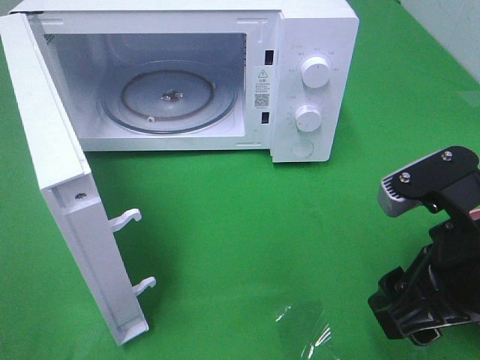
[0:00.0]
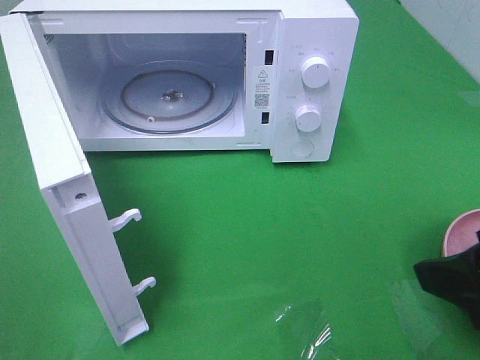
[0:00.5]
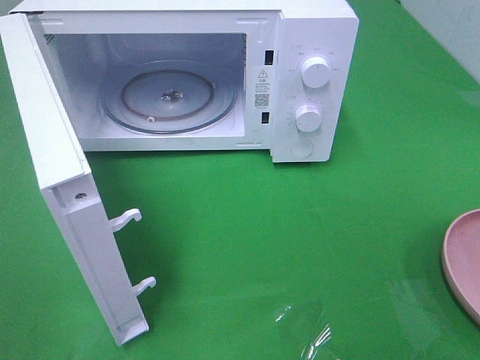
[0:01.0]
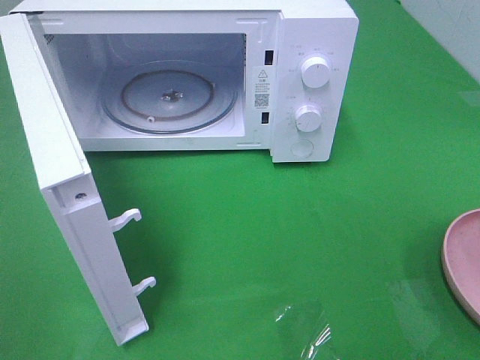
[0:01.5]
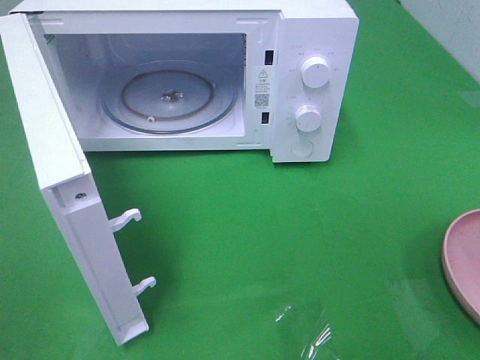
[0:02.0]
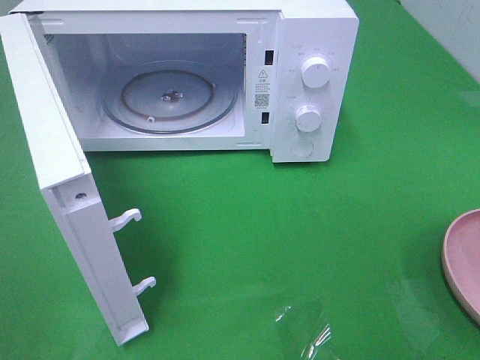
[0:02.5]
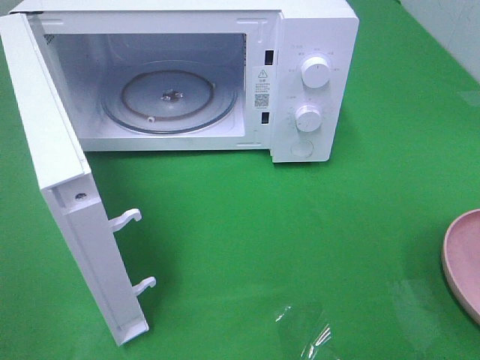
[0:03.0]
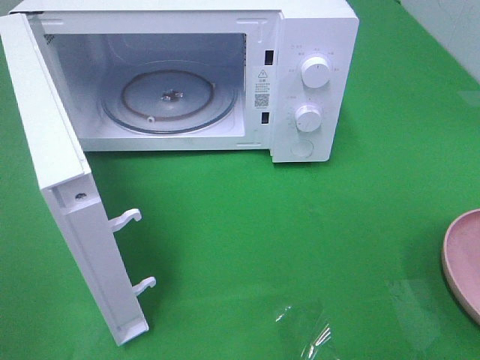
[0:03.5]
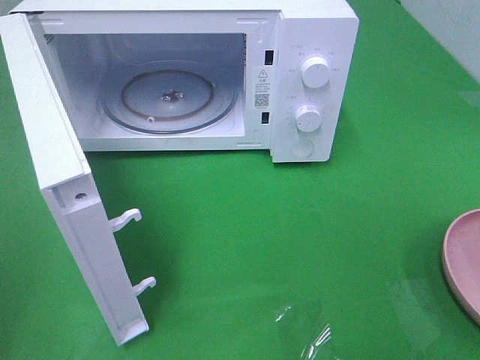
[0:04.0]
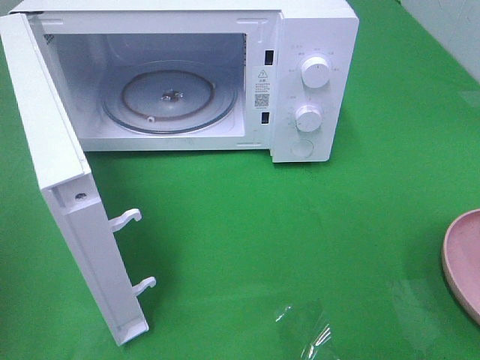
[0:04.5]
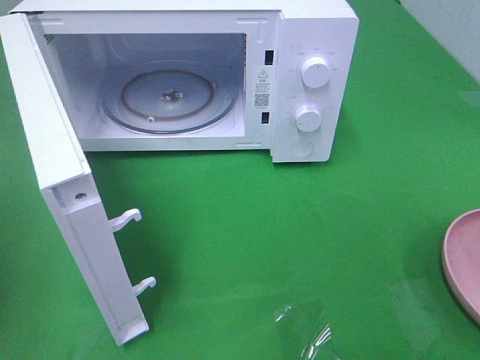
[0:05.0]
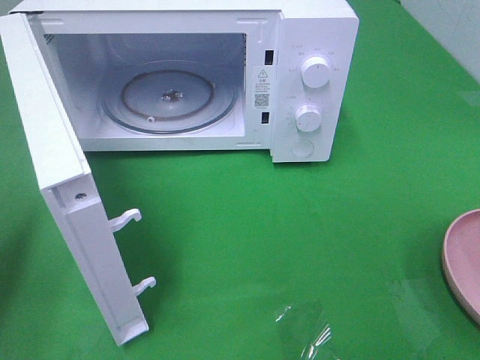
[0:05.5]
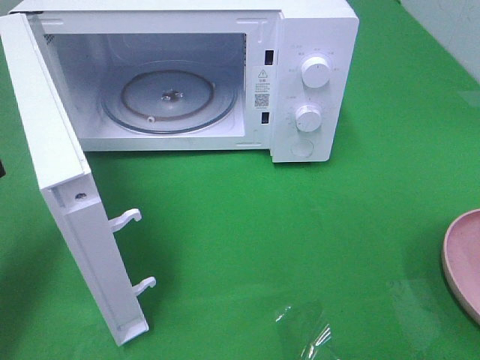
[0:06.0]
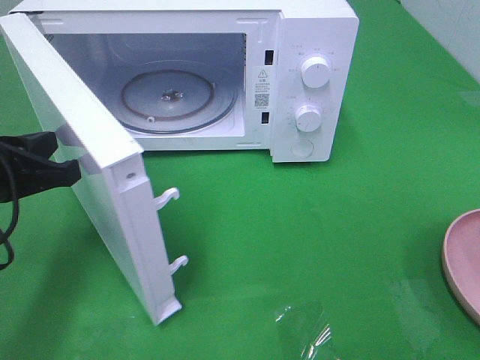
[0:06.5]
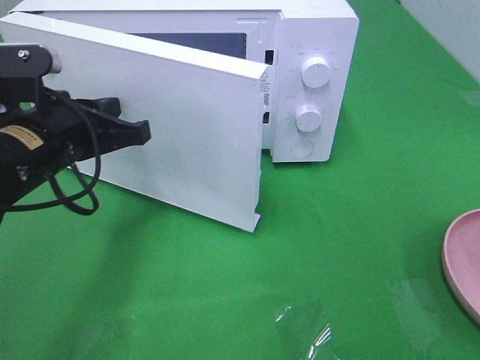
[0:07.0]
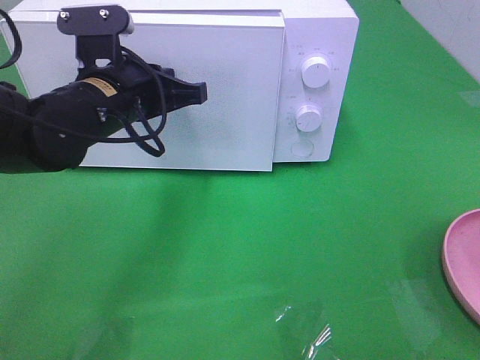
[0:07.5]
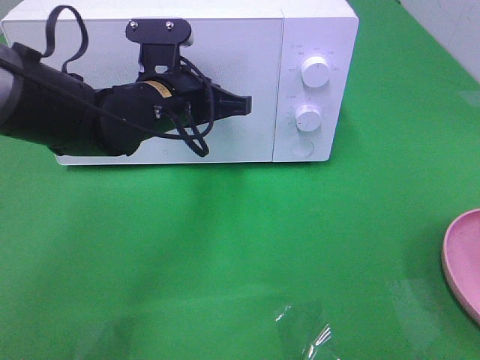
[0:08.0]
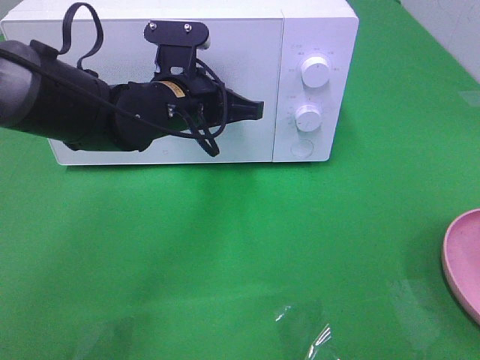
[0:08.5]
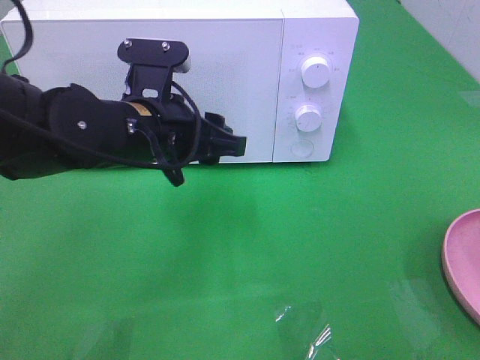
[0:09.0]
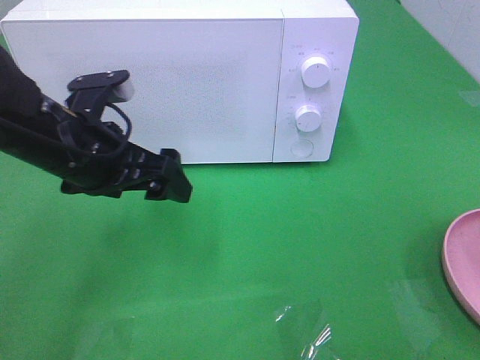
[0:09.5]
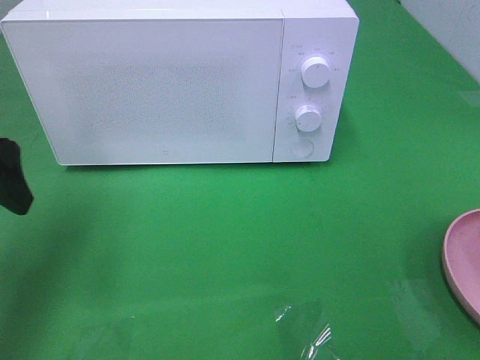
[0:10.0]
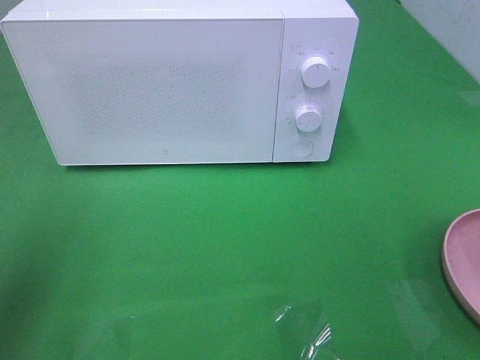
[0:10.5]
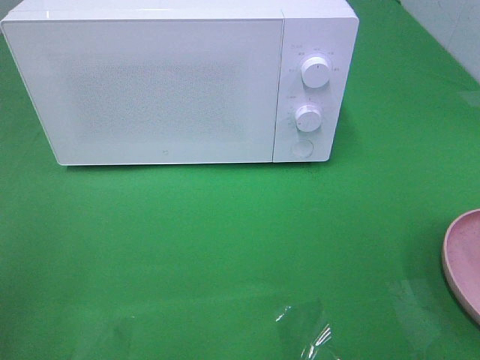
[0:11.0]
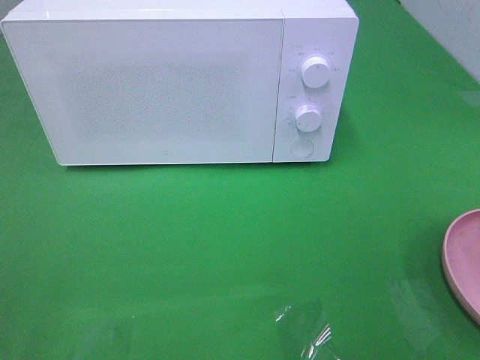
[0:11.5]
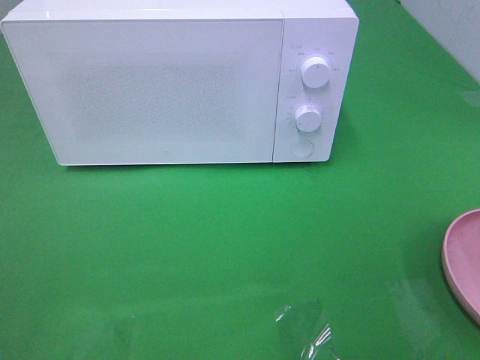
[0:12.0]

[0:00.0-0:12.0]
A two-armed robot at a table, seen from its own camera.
Task of the whole recording: Heat the burger.
Step, 0:00.0 to 0:09.0: Left hand: close the microwave door.
0:00.0 to 0:02.0: The right gripper travels backward, to the right and upward by approximately 20 cm.
0:04.0 to 0:06.0: The left gripper goes roughly 20 cm forward and downward.
0:06.0 to 0:08.0: The left gripper moves to the right and forward, approximately 25 cm.
0:08.0 to 0:10.0: The left gripper moves to the left and backward, about 20 cm, and opens up.
0:10.0 to 0:12.0: The left gripper moves backward, roughly 25 cm.

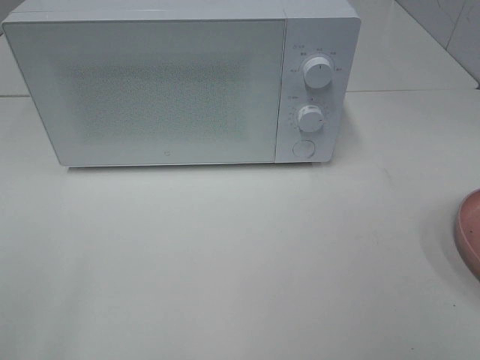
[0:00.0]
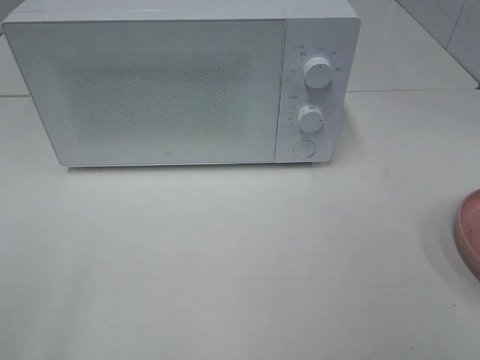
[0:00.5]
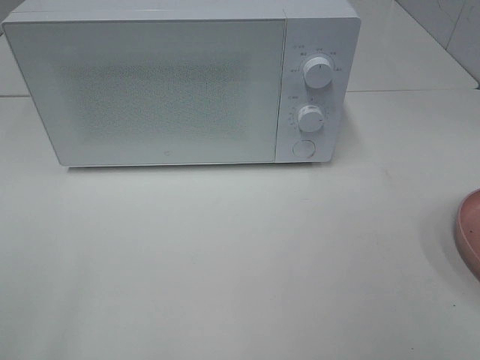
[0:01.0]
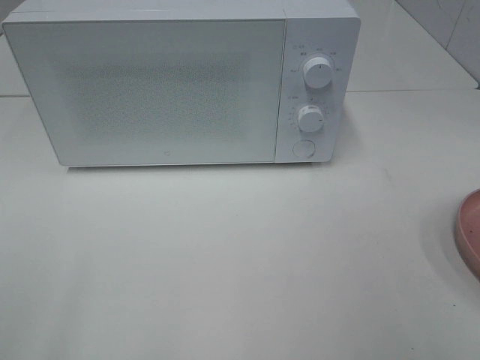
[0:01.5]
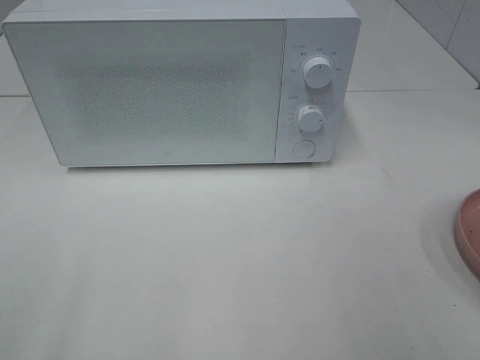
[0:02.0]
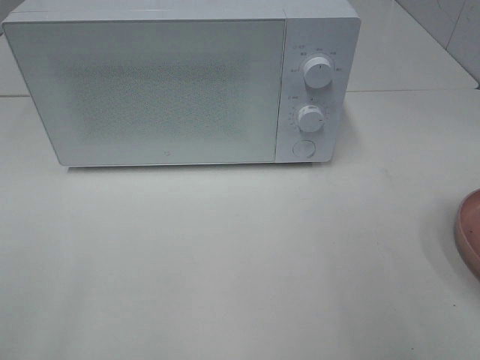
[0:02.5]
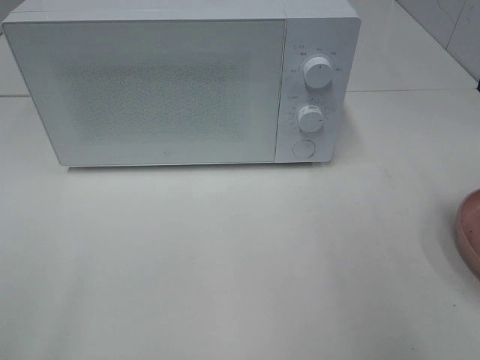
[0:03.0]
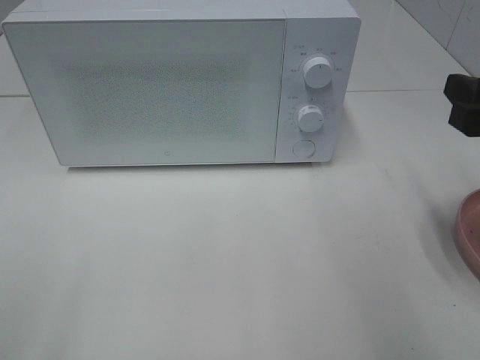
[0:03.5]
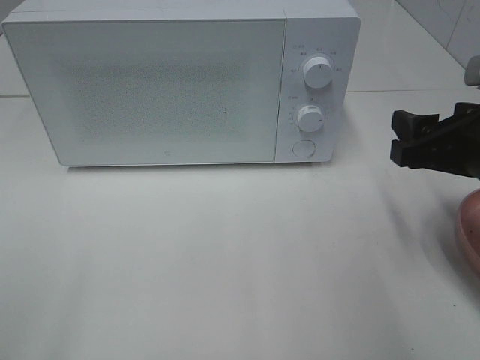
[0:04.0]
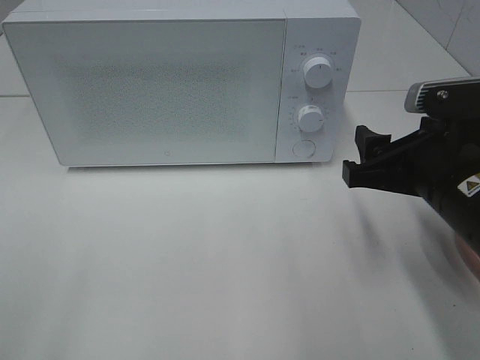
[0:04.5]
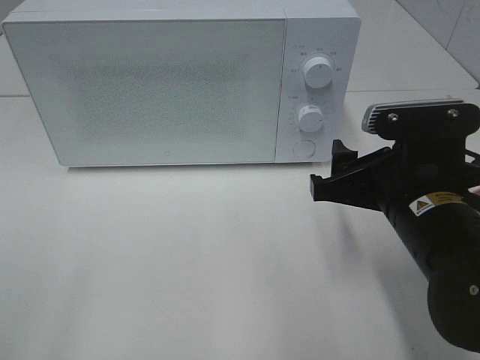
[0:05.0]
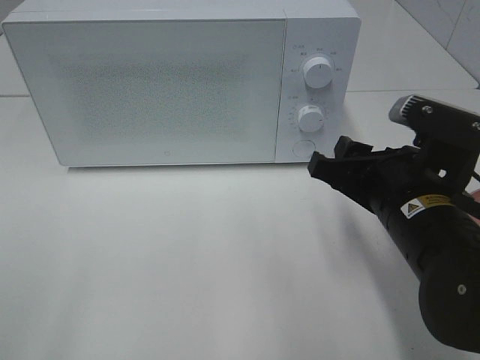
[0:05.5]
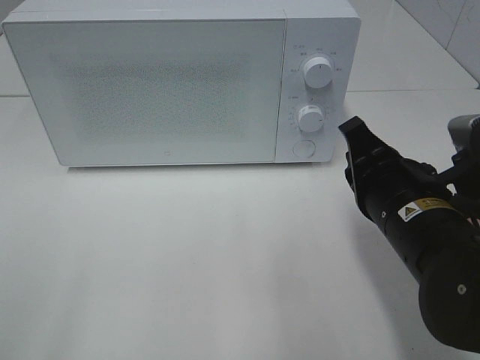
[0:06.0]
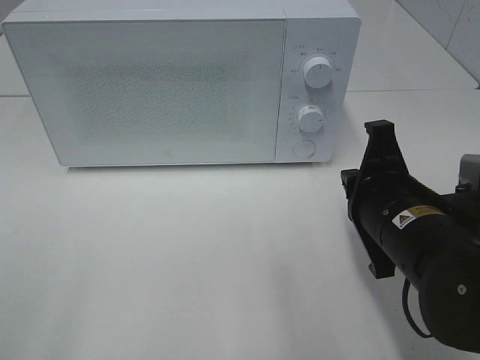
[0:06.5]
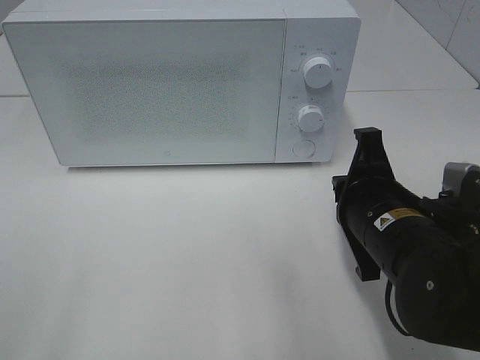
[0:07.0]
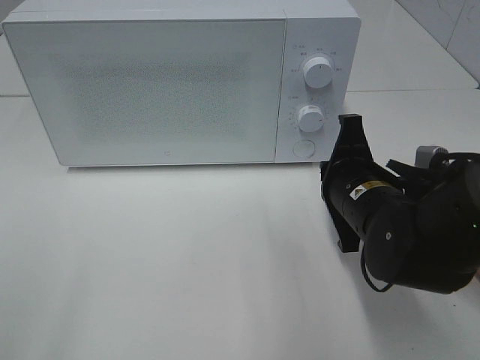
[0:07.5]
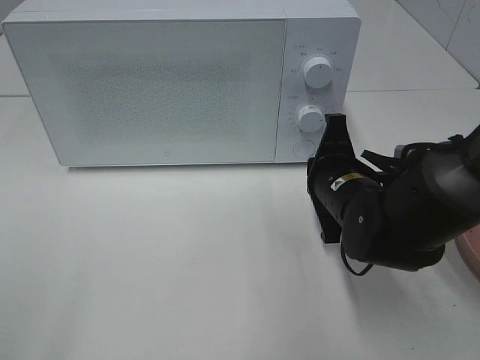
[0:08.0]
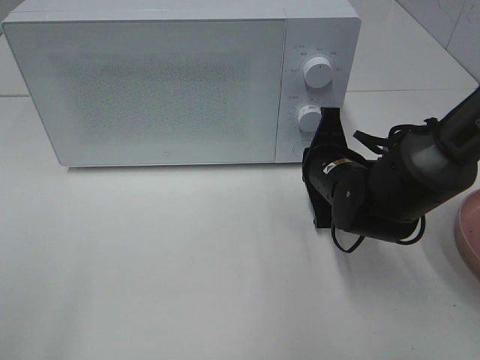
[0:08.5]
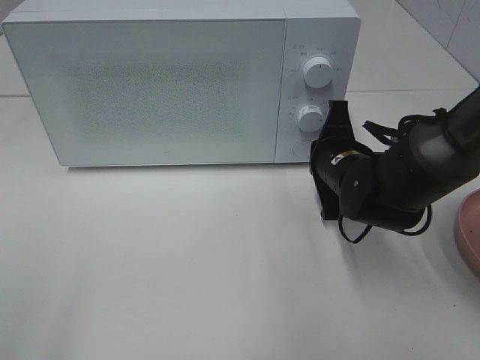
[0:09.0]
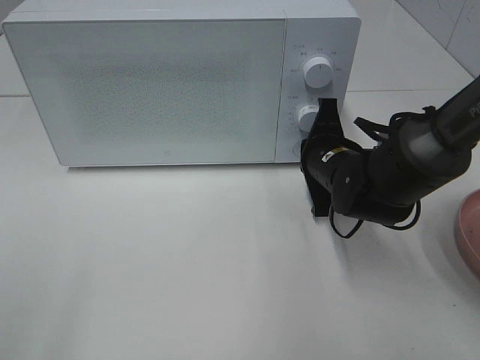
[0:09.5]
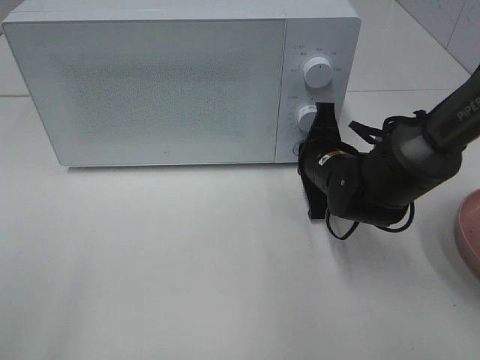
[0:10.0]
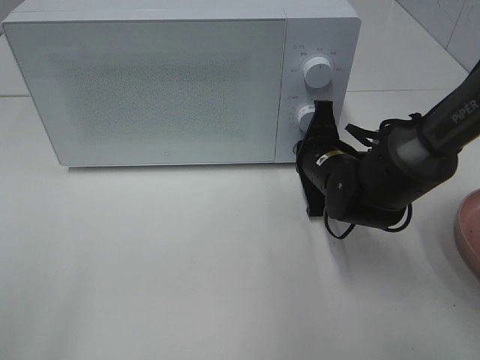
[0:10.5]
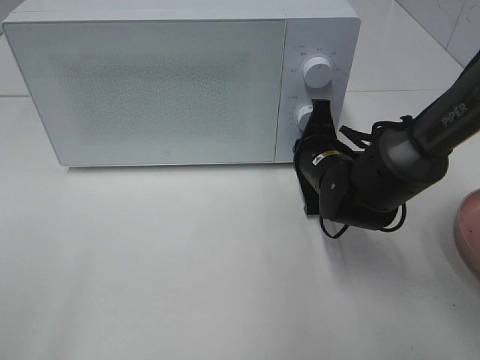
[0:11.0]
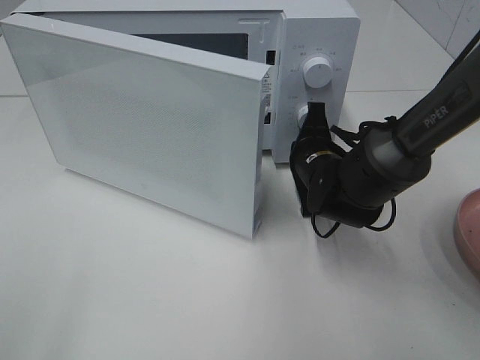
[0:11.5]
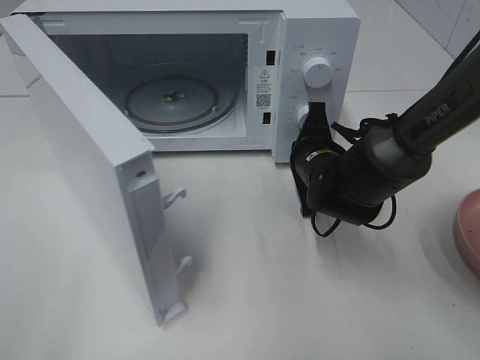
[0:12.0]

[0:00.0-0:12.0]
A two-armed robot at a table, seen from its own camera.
Task of the whole recording: Heat the burger.
0:02.0 to 0:04.0: The right gripper goes some 15 cm forward and downward.
0:04.0 to 0:06.0: The right gripper shifts roughly 10 cm to the left, and closes its fingers.
0:06.0 to 0:08.0: The right gripper moves forward and downward, approximately 10 cm.
0:08.0 to 0:10.0: The right gripper moves forward, some 5 cm.

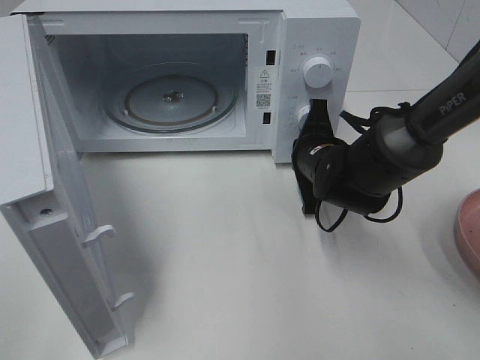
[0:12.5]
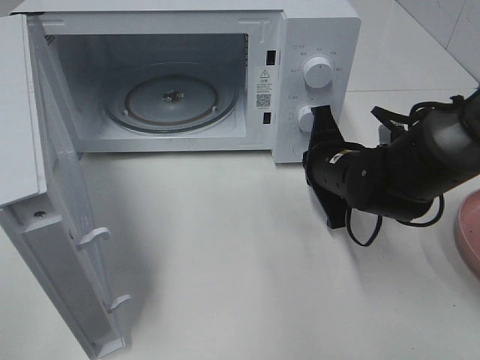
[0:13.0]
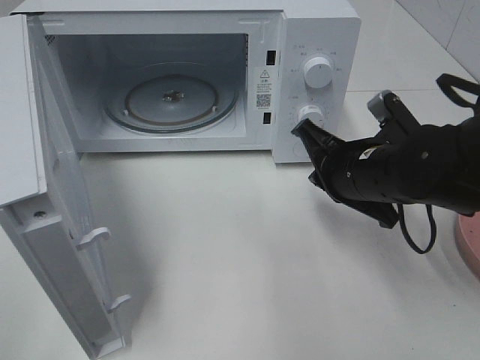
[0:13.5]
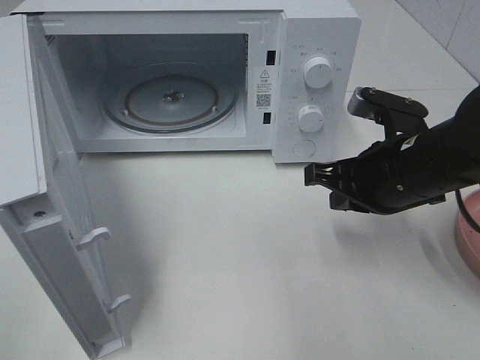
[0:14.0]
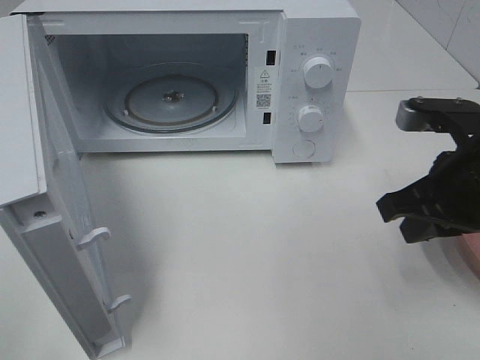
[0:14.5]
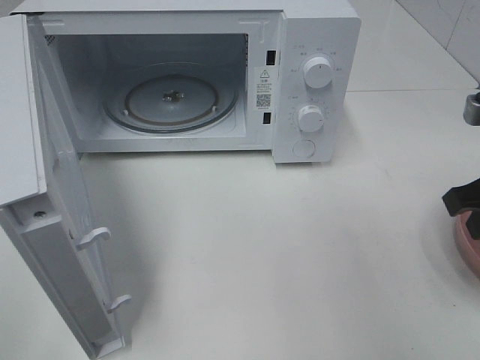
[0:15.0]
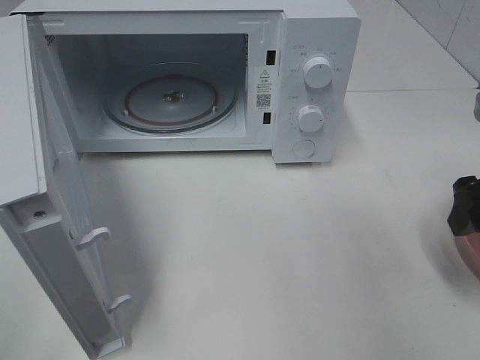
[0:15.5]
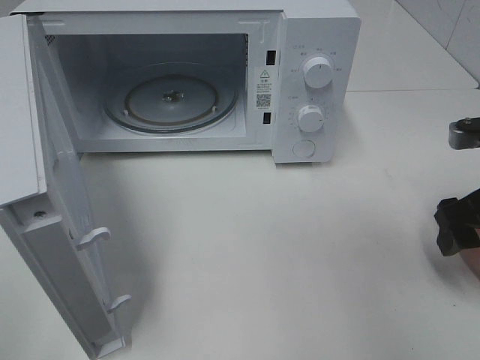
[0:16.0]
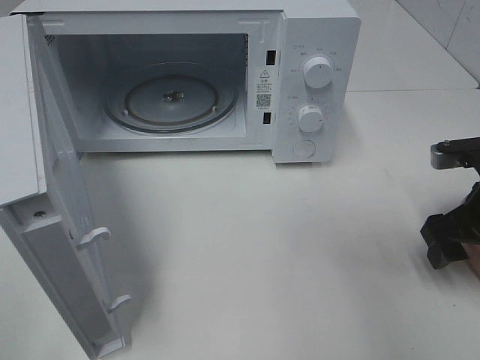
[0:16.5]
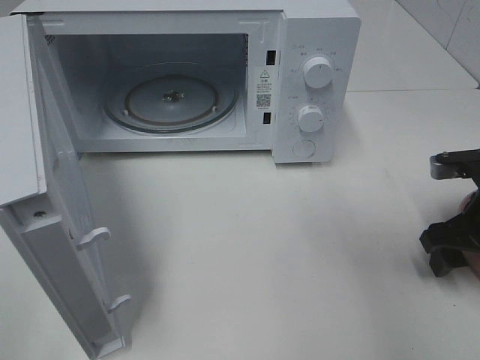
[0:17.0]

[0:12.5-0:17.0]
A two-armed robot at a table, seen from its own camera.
Task of the whole recording: Heat the burger.
0:12.5 to 0:14.5: The right gripper heads backward, upward and to the right, covering approximately 20 cm.
0:14.5 to 0:17.0: The right gripper goes about 10 cm downward and to the right, and opens up.
